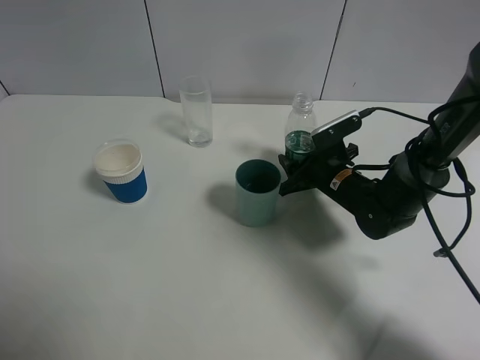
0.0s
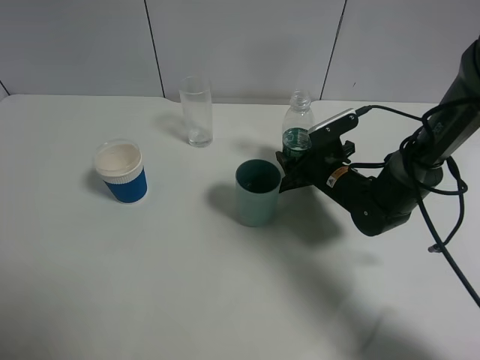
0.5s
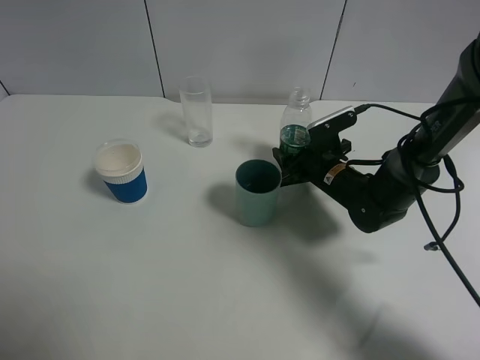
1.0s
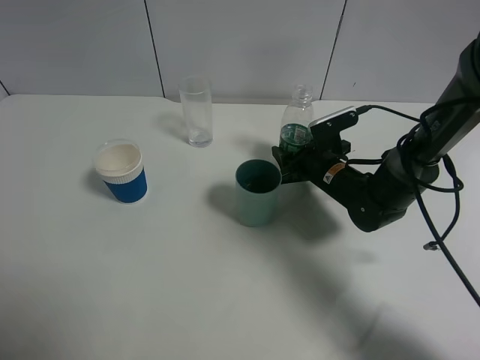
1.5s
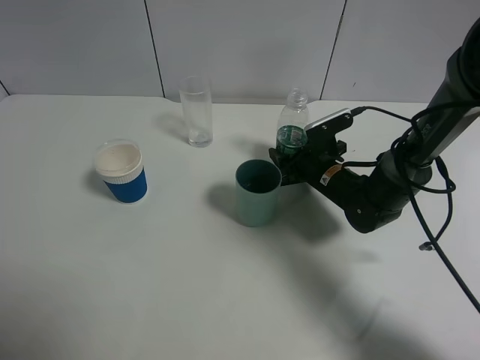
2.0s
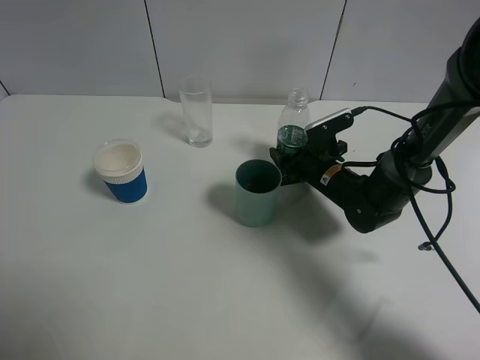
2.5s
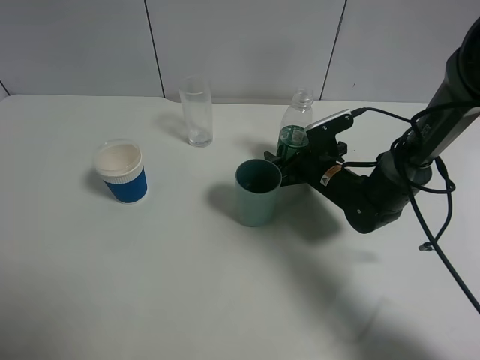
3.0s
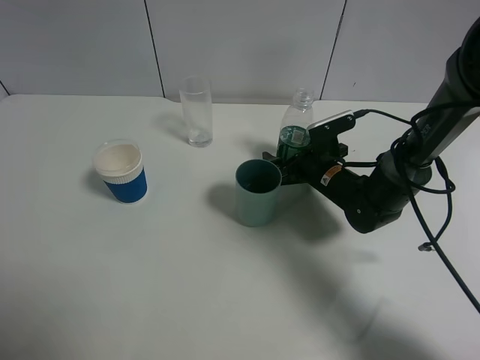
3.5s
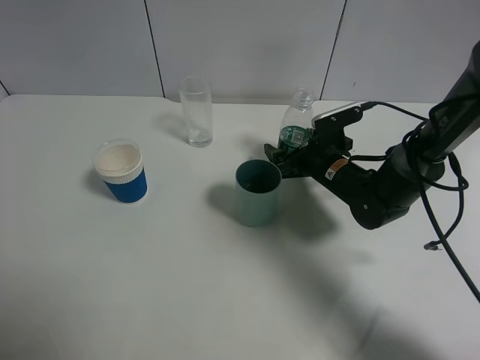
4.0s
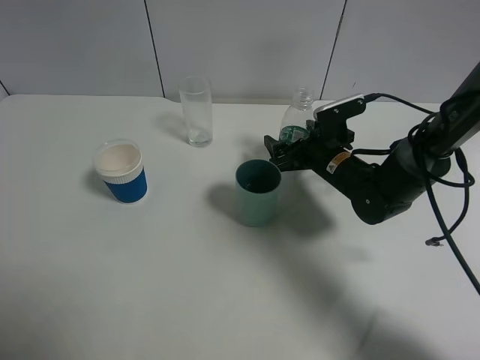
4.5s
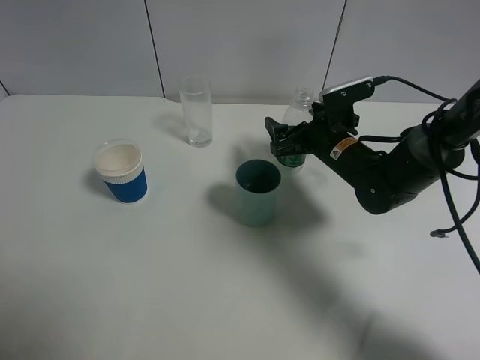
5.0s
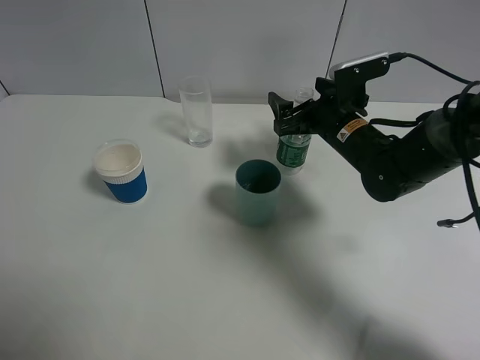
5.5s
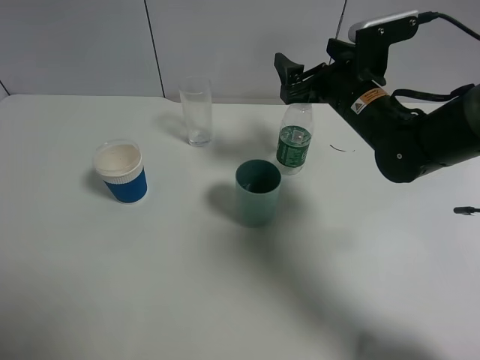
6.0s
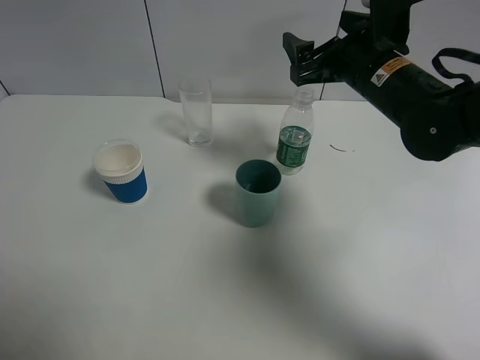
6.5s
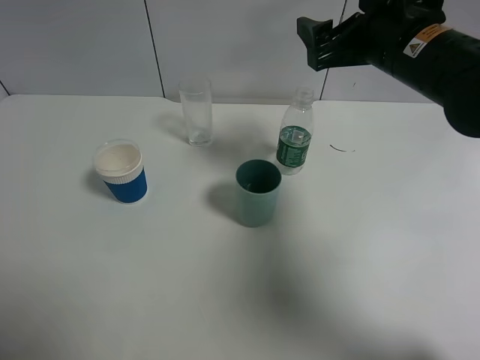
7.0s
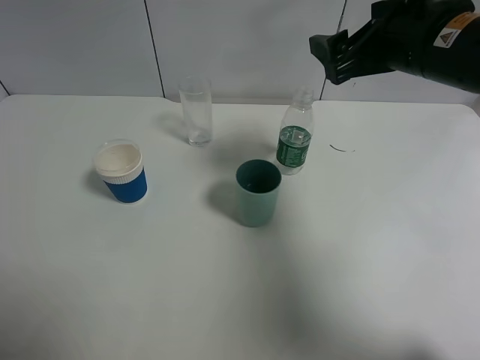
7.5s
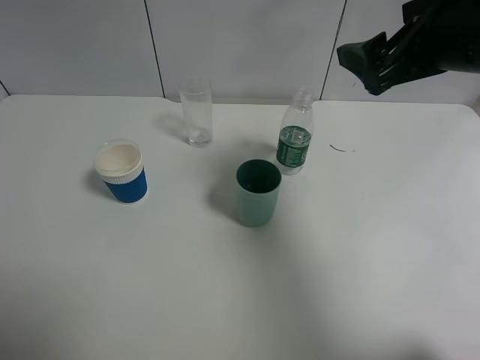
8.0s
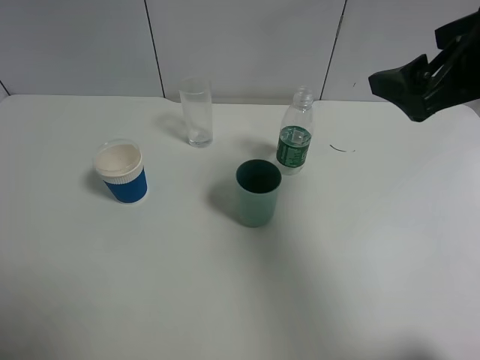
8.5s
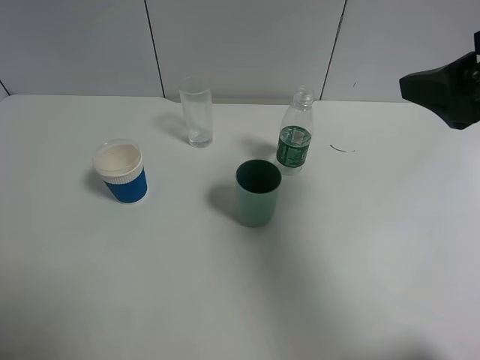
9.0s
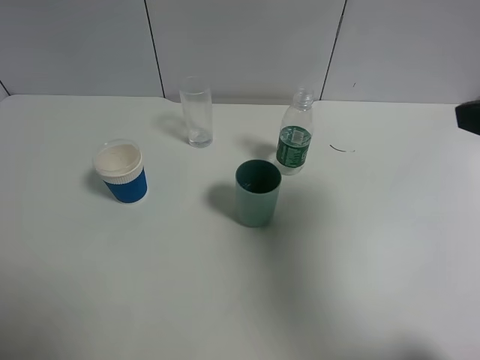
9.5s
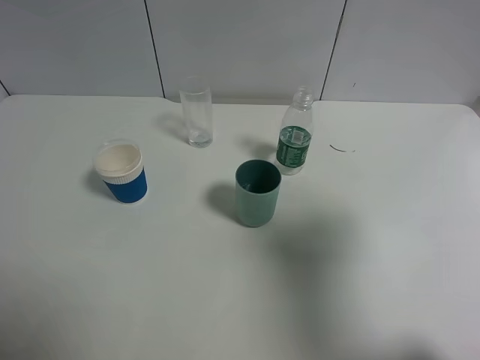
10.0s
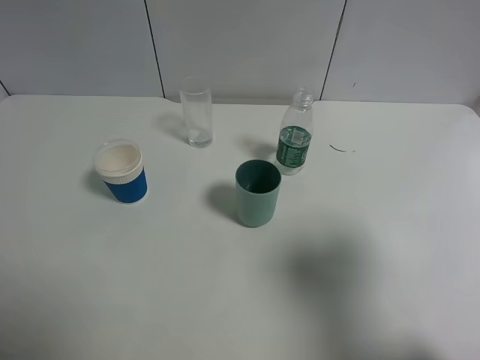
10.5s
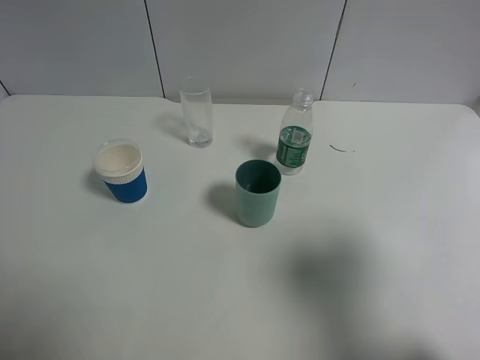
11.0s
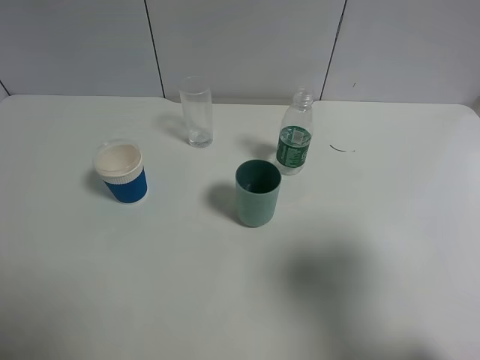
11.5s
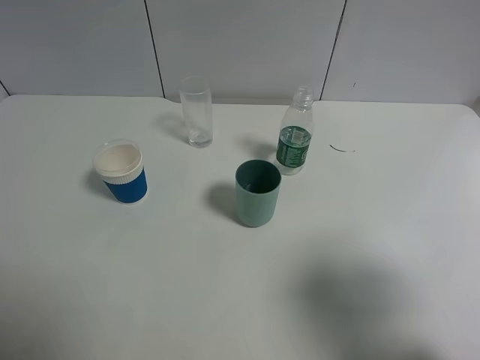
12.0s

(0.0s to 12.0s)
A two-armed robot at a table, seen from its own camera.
Task of the whole recording: use a gripper to hold the bottle of the drink and pour it into a random cup.
Step, 0.0s - 5.0s: Place the mineral water bottle on the table with the right gripper.
0.0s - 2.0s: The grippers stay close to where they were, moving slightly.
2.0s - 4.0s: The right gripper opens up.
4.0s - 6.0s: The right gripper is displaced upward by roughly 15 cm.
6.0s - 8.0s: The right gripper goes approximately 15 cm upward and backward.
8.0s - 10.0s: The right gripper moves backward and to the right, about 15 cm.
10.0s - 12.0s: The right gripper heads backward, covering roughly 5 cm.

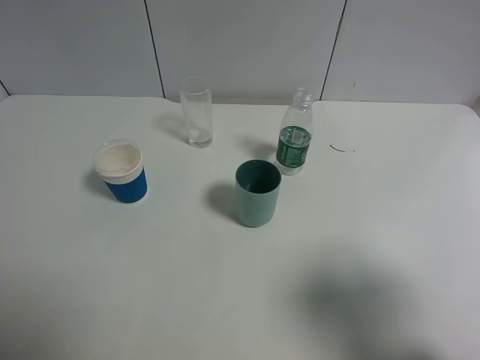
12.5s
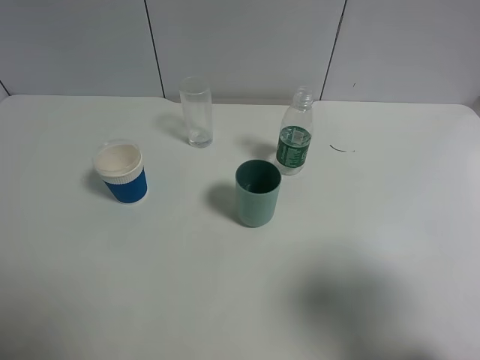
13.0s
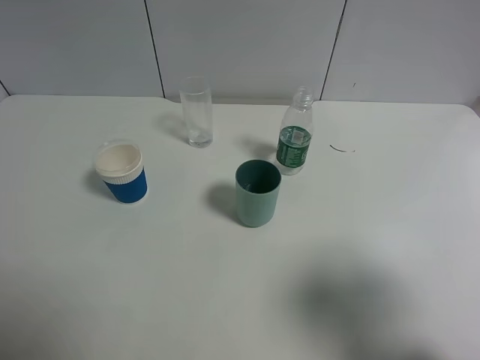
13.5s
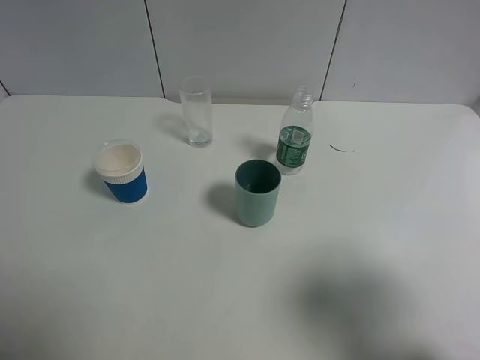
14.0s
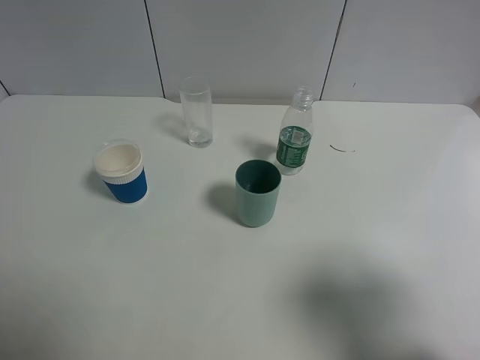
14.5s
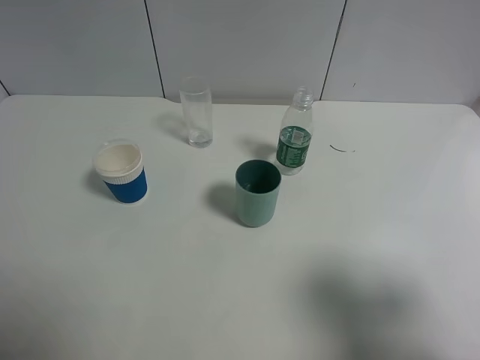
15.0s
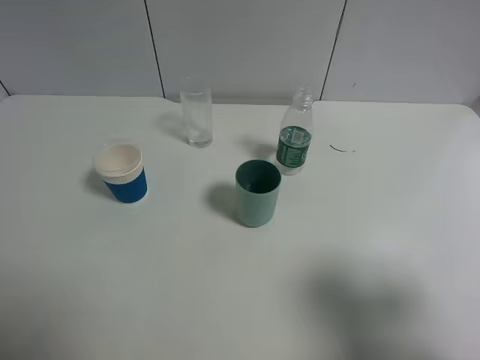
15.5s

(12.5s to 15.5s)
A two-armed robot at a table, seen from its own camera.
Task of the whole recording: use a gripper to hold the bottle of the drink and pour it into a random cup.
12.5s - 14.0s: Both grippers stay put.
